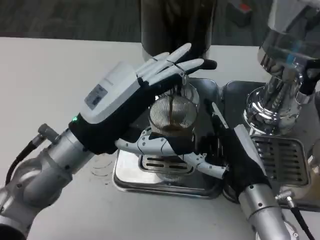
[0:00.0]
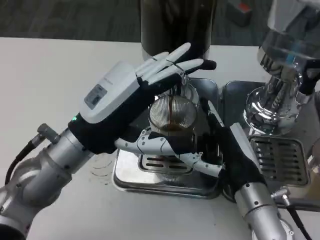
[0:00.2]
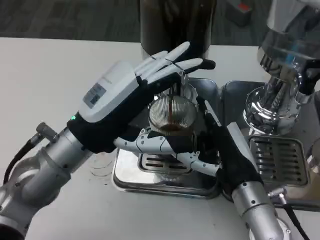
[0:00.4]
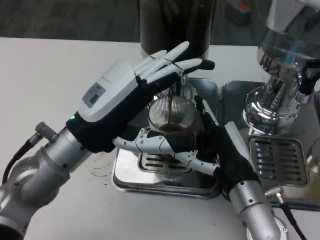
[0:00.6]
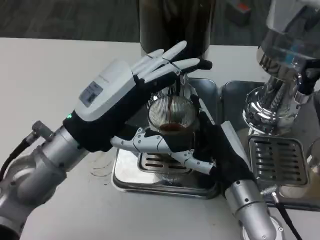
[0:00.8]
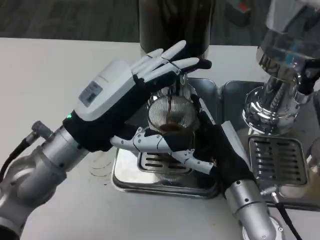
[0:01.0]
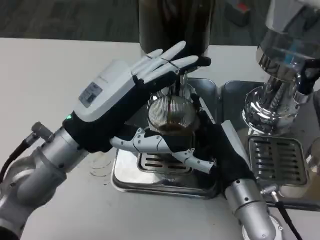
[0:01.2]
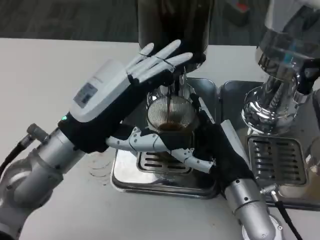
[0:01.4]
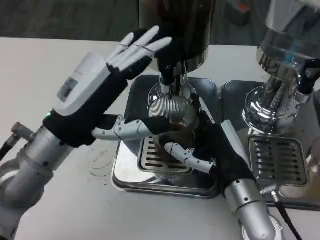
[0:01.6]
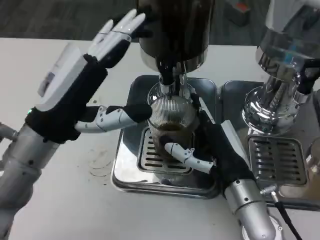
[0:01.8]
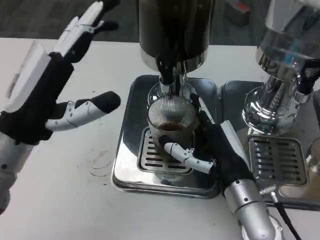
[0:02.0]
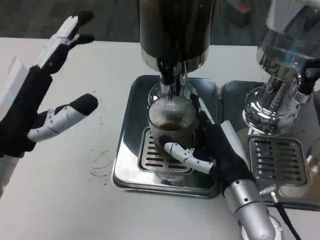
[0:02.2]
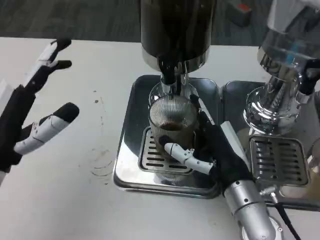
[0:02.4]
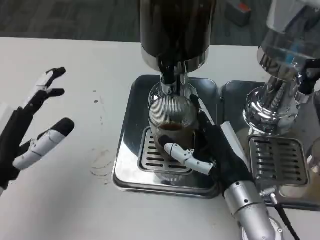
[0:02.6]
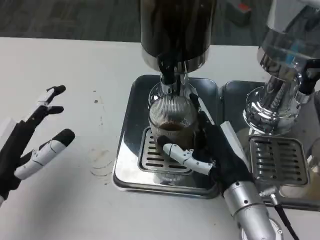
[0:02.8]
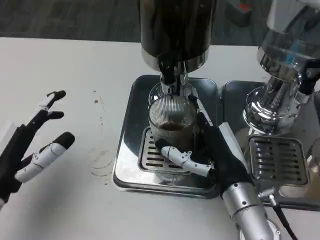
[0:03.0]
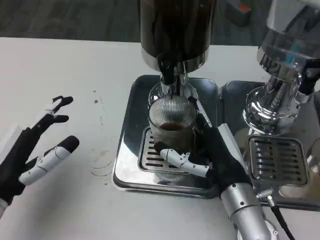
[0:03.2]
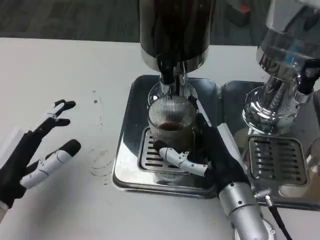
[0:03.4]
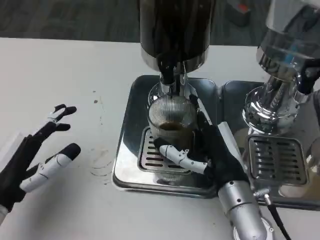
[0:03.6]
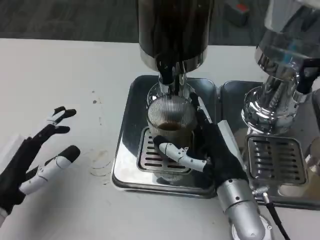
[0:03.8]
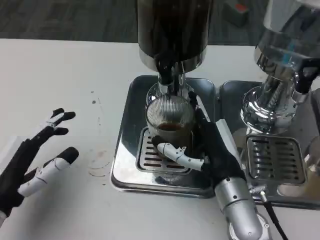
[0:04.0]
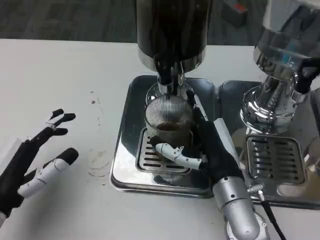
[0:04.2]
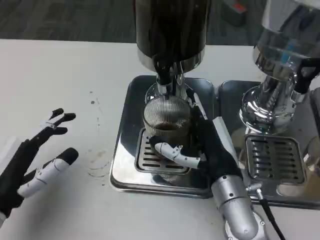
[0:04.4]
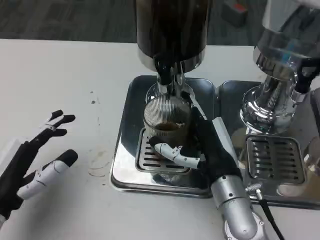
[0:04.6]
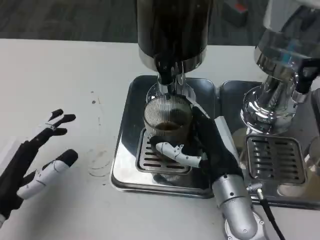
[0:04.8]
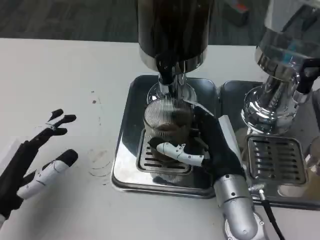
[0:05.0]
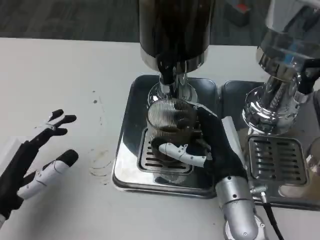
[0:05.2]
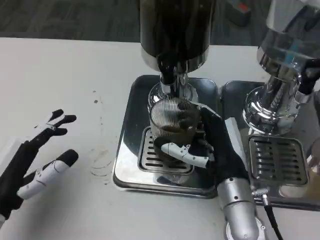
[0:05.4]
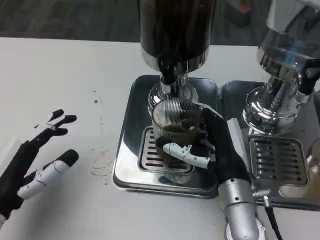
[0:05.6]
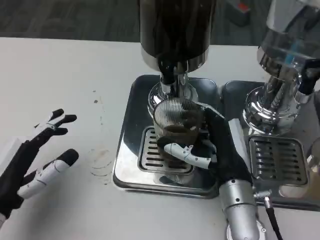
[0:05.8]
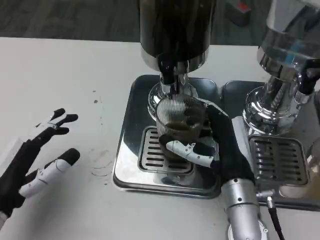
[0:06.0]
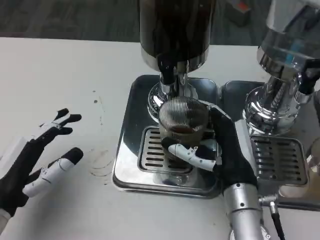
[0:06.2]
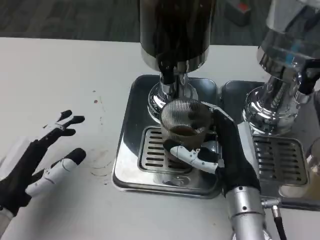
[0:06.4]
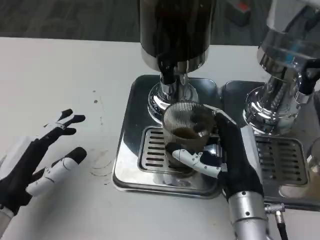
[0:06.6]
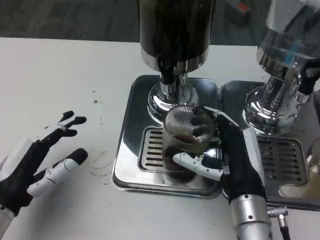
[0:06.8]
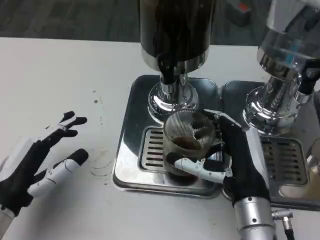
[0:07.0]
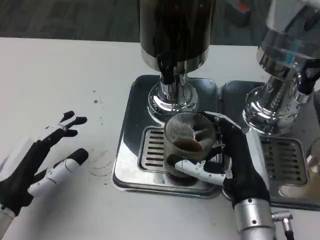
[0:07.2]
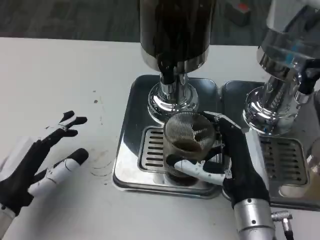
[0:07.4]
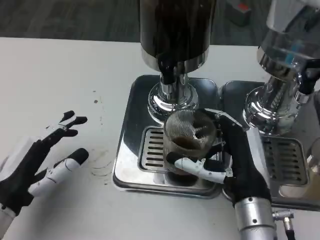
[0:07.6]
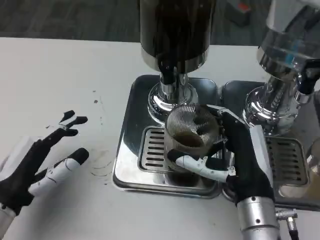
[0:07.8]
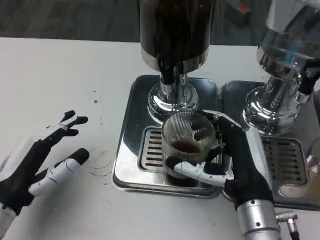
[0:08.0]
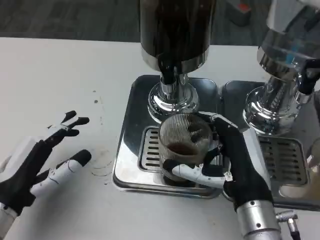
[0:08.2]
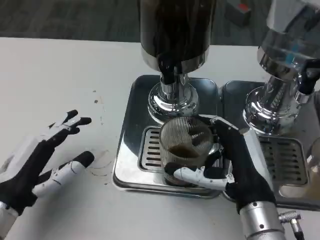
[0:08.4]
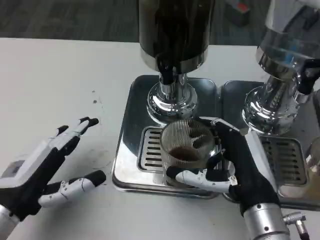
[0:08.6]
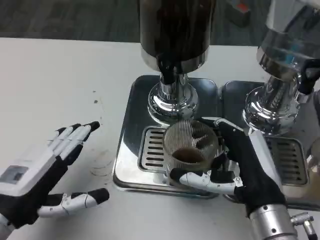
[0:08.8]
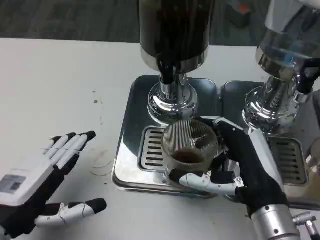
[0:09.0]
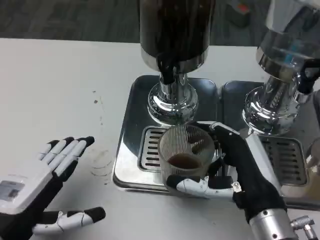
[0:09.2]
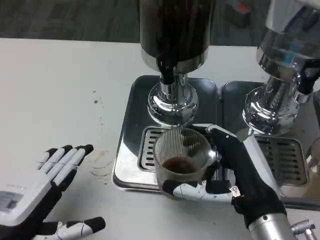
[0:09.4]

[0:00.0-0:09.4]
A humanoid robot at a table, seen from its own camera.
Task of the whole recording: Grasp the cup under the faucet to collect the drink, then remove the cup.
0:01.6 to 0:03.2: The left hand goes about 15 cm to the left, downward and backward.
0:06.2 to 0:07.8: There are only small adjustments of the hands.
0:07.8 to 0:09.4: The left hand shifts some 5 cm backward.

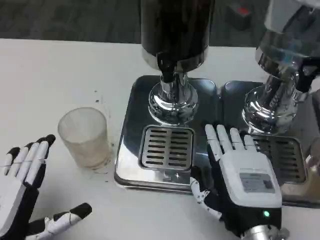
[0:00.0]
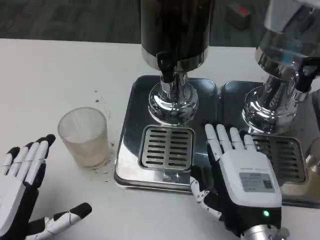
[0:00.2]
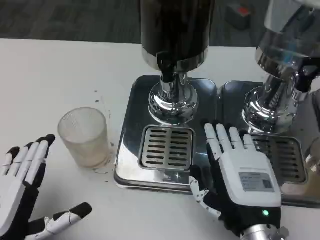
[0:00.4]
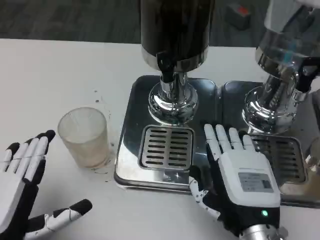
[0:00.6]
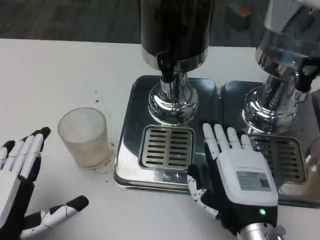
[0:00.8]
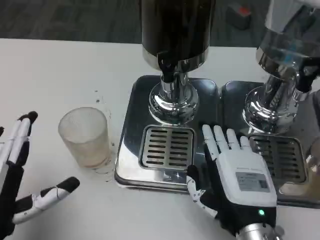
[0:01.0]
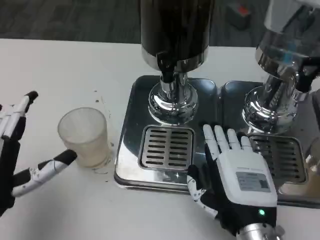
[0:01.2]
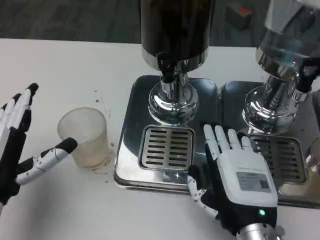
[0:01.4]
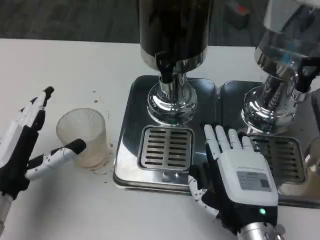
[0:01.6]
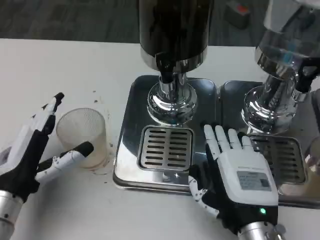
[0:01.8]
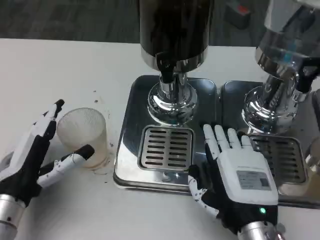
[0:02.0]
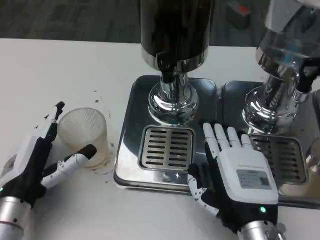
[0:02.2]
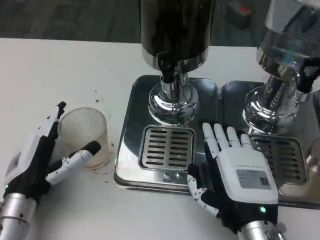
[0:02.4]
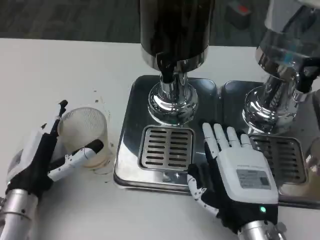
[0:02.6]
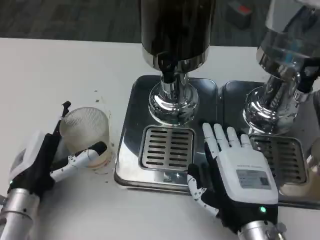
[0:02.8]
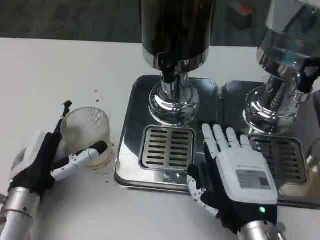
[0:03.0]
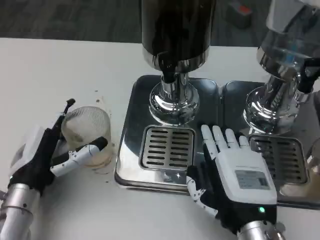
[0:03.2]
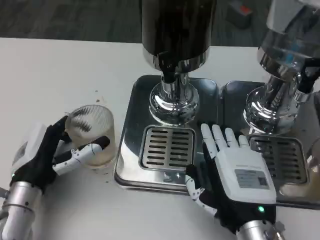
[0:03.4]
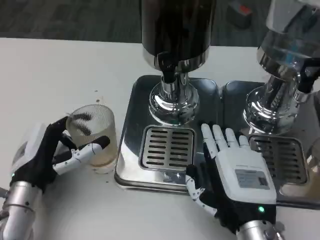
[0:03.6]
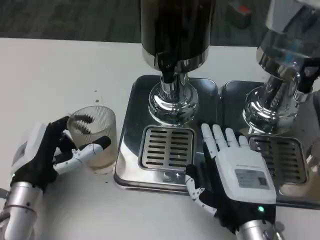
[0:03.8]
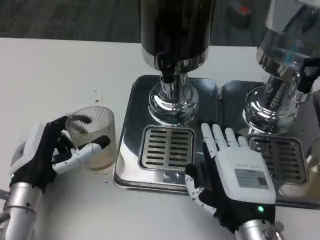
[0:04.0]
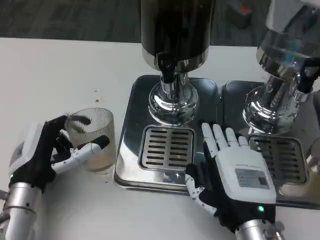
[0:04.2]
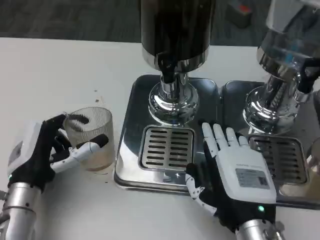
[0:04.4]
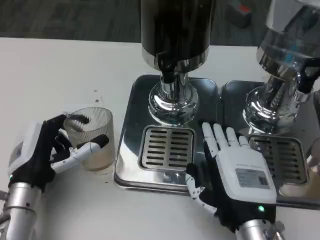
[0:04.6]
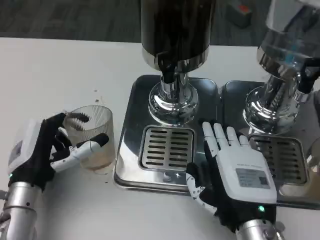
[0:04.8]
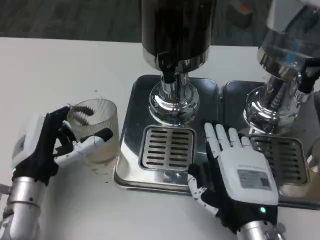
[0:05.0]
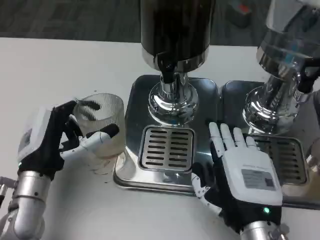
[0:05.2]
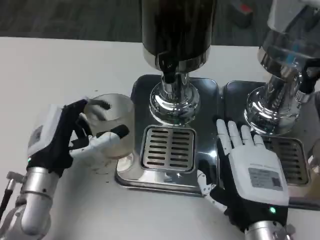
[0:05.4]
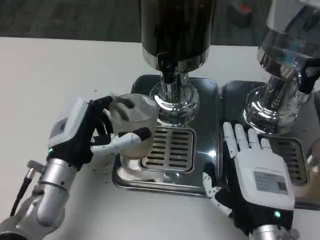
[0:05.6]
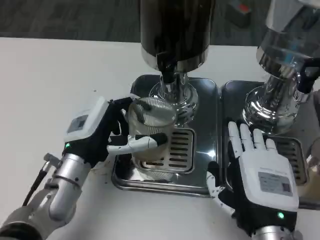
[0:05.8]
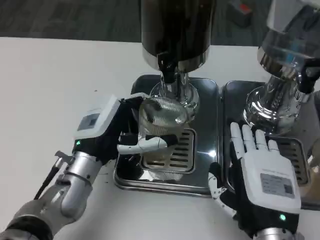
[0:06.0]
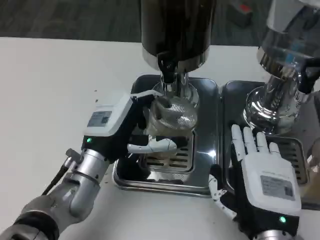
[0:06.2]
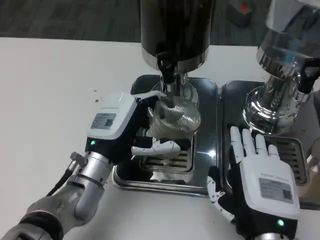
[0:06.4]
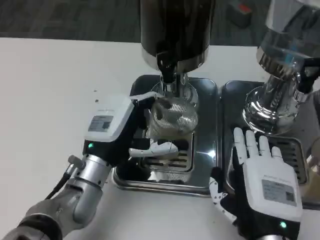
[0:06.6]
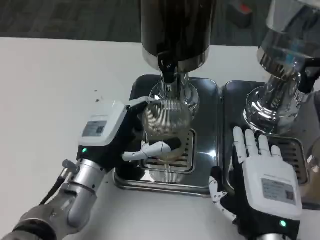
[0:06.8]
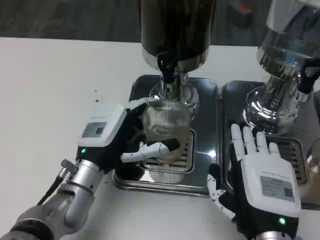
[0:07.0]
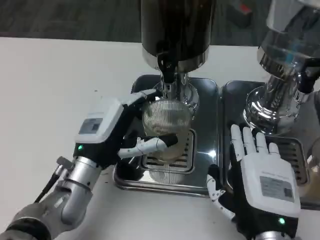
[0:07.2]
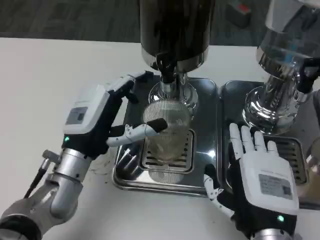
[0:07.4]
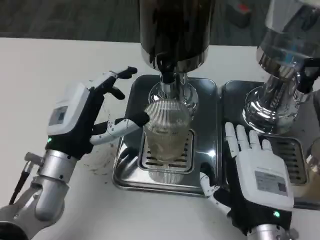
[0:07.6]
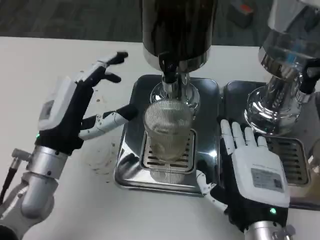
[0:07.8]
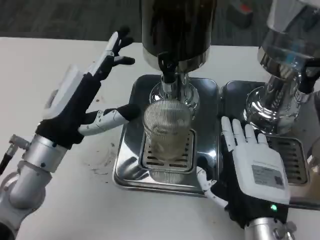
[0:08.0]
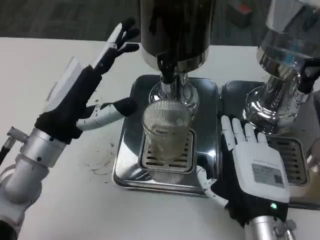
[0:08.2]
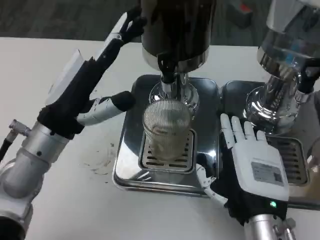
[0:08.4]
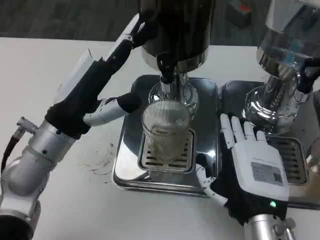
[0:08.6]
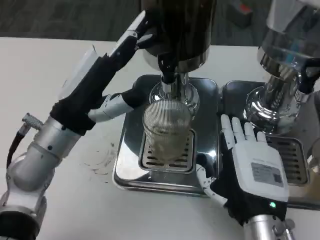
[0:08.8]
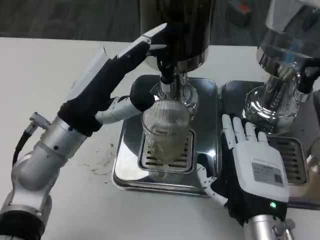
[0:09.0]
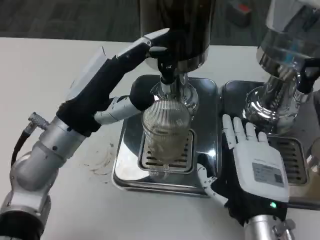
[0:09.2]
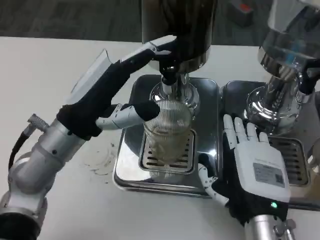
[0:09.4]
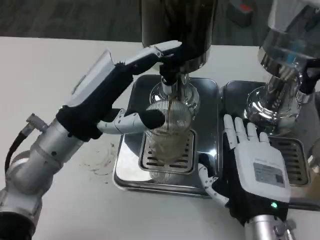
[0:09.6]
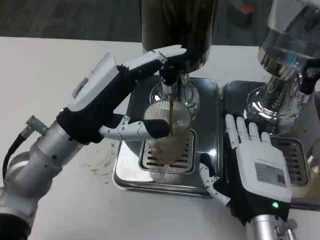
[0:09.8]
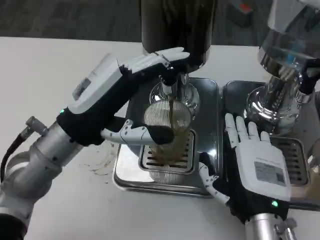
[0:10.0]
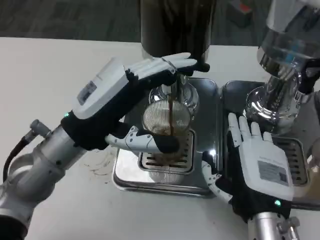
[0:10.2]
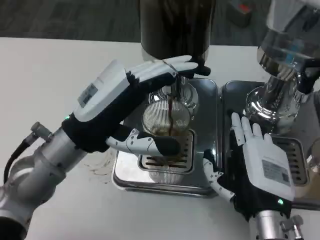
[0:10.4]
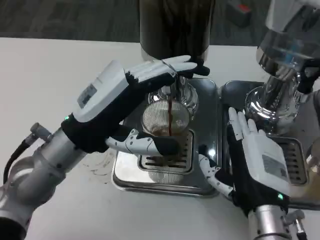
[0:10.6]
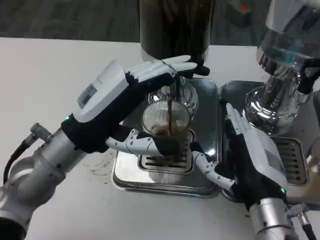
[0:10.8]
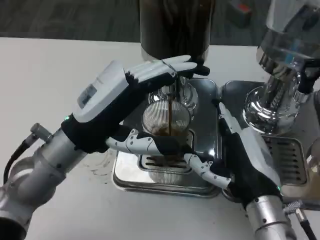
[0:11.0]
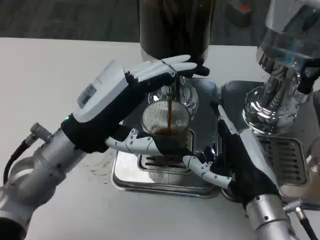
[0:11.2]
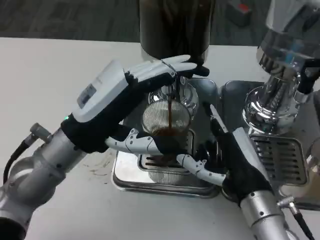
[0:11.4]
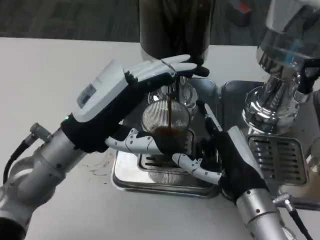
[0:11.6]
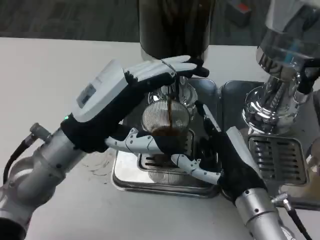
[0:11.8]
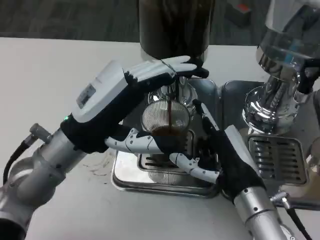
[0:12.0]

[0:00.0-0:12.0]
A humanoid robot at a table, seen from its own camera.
Task of the whole recording: Grasp the cup under the faucet to collect the drink, then remove the cup.
0:00.0 to 0:01.6: The left hand is displaced forward by some 10 cm.
0:01.6 to 0:04.4: The hands make only small movements.
0:04.4 to 0:06.0: The left hand travels to the right by some 5 cm.
0:07.6 to 0:09.0: The left hand is displaced upward by some 5 cm.

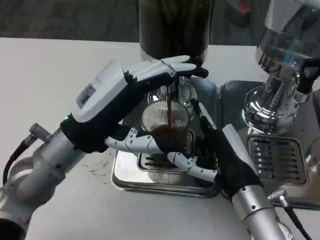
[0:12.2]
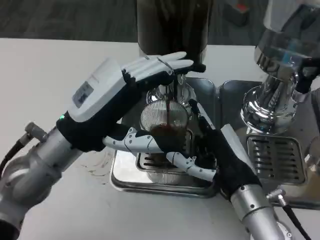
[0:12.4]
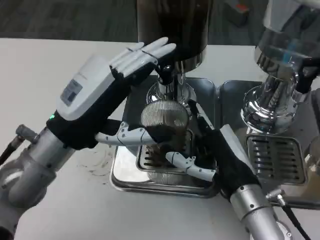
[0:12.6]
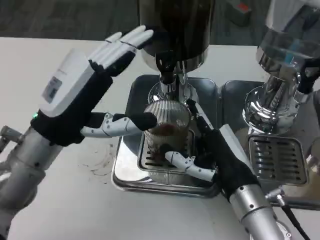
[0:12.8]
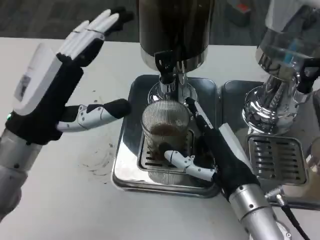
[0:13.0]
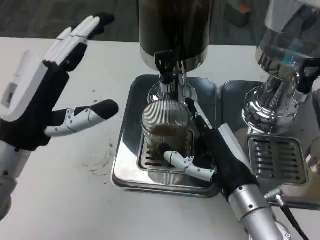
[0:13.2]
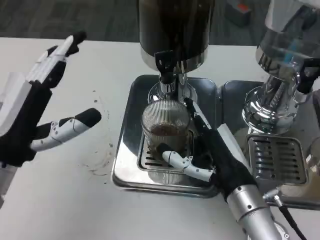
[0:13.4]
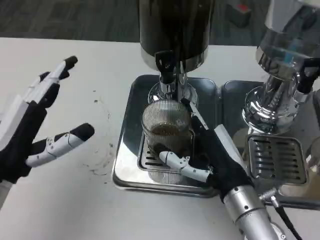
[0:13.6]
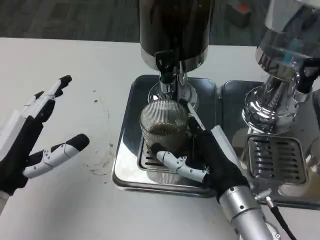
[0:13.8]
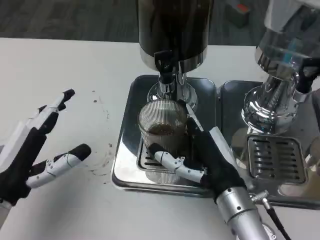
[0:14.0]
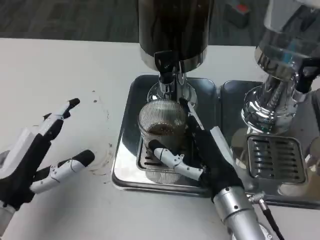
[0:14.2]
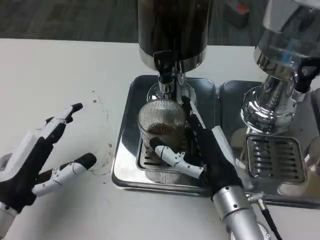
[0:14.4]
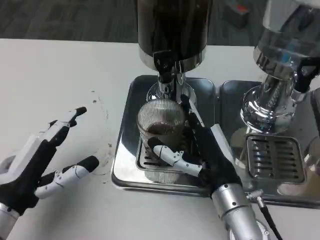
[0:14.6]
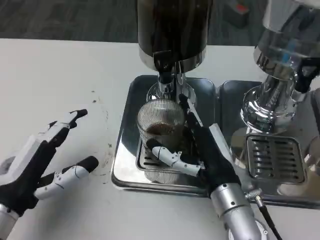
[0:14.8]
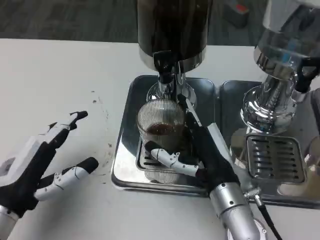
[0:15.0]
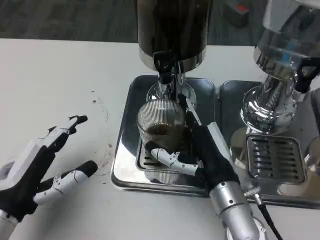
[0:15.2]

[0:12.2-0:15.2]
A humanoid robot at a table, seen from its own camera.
Task of the whole recording: Grasp the cup under the faucet to collect the drink, then remove the cup.
0:12.2 to 0:13.8: The left hand shifts roughly 10 cm to the left and backward.
